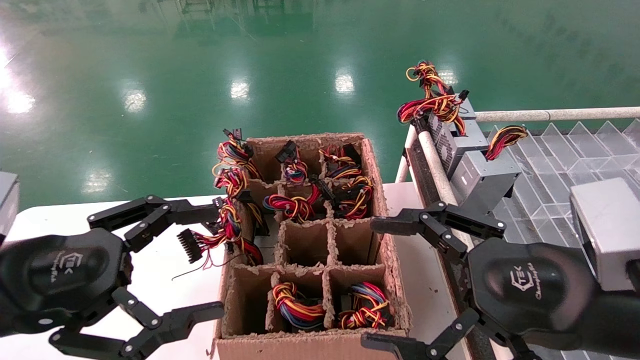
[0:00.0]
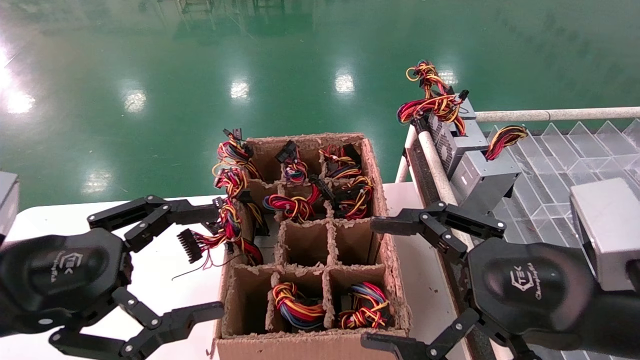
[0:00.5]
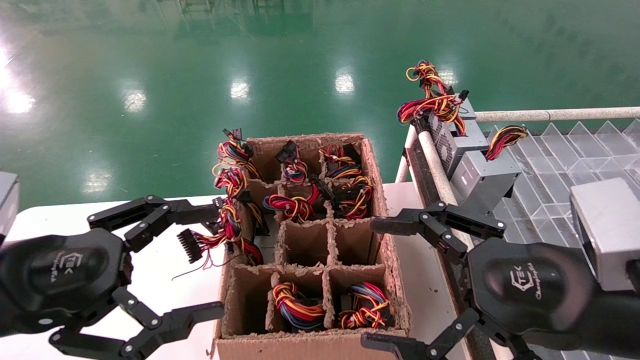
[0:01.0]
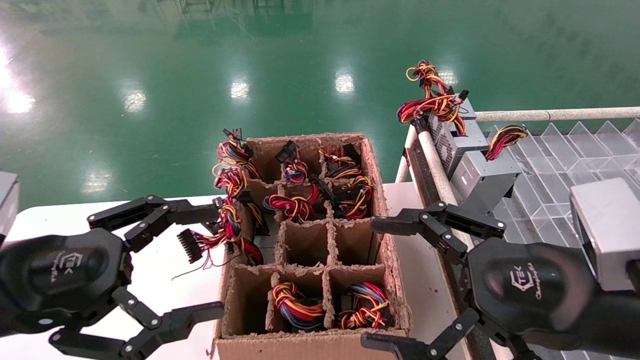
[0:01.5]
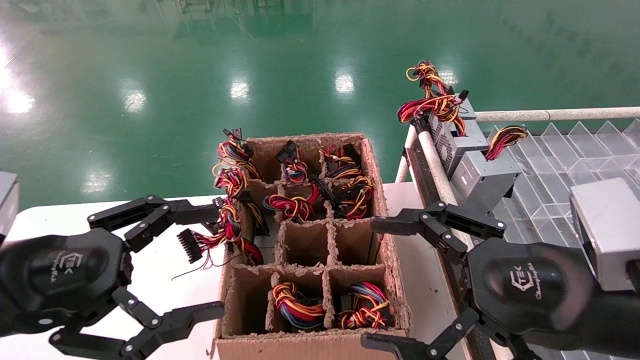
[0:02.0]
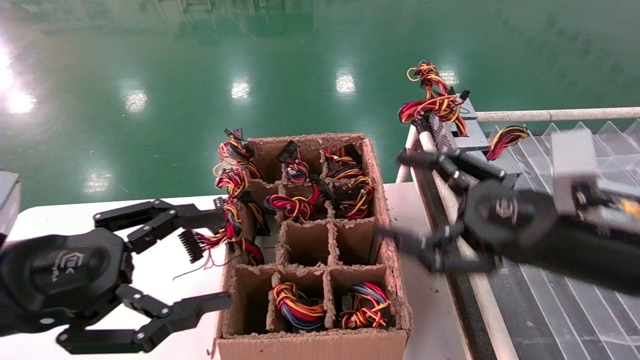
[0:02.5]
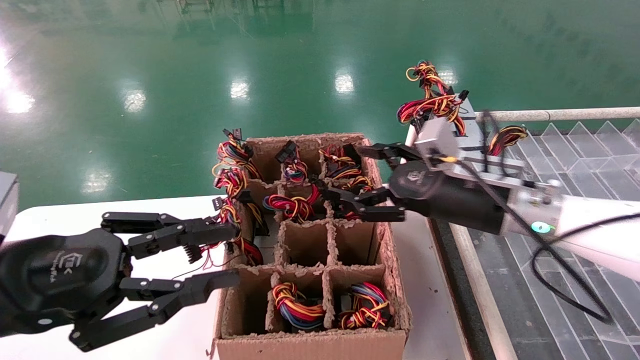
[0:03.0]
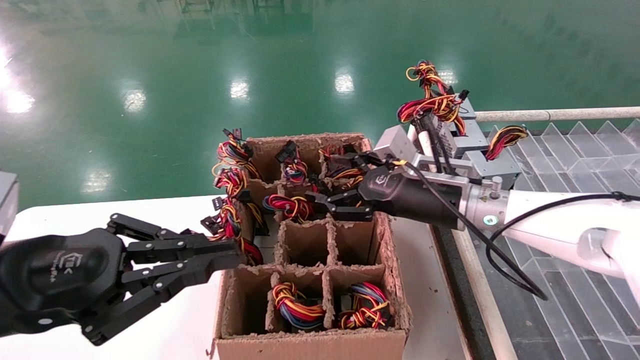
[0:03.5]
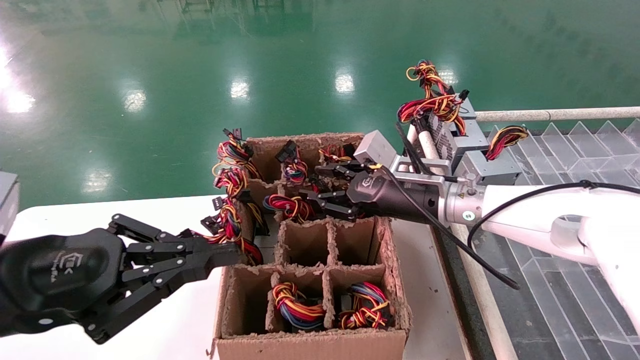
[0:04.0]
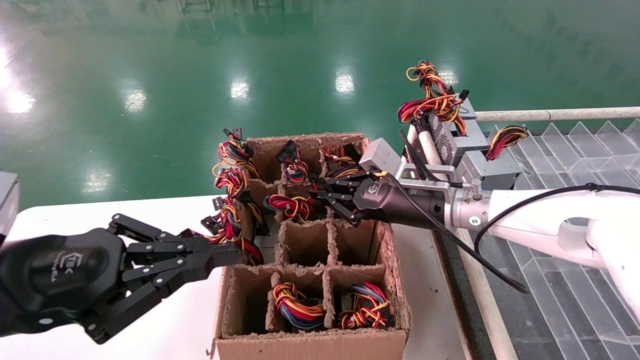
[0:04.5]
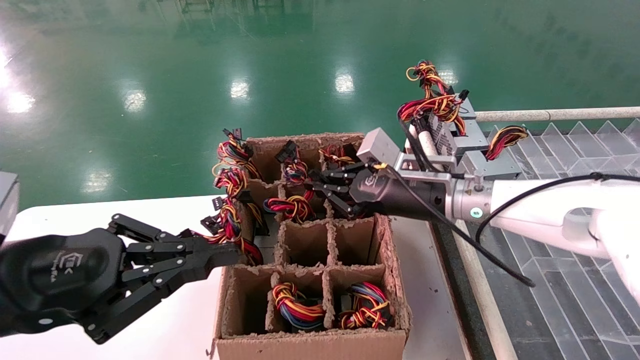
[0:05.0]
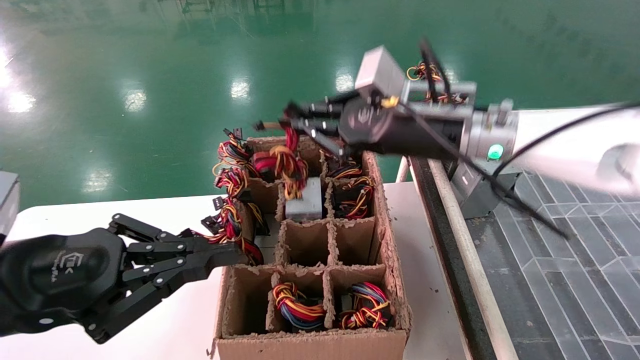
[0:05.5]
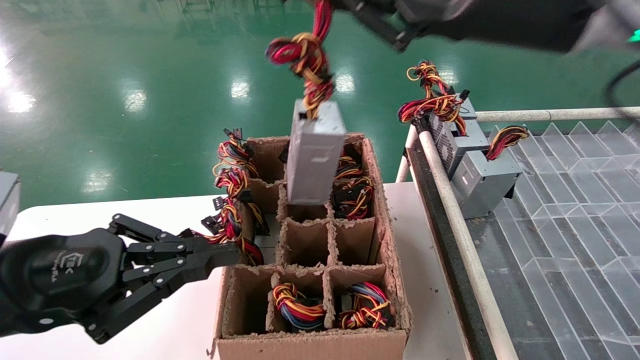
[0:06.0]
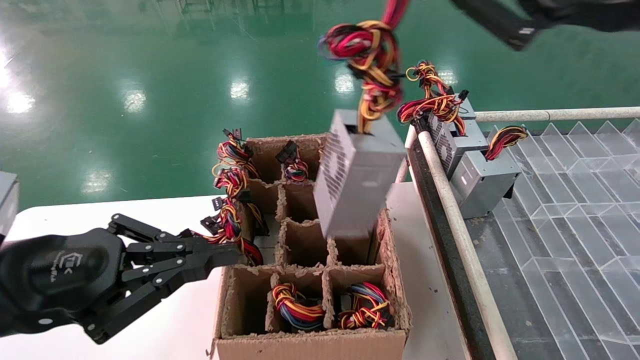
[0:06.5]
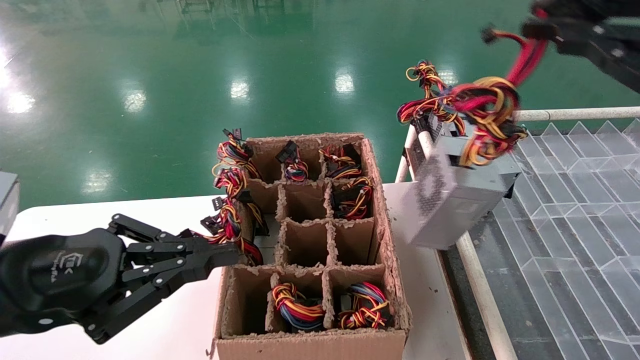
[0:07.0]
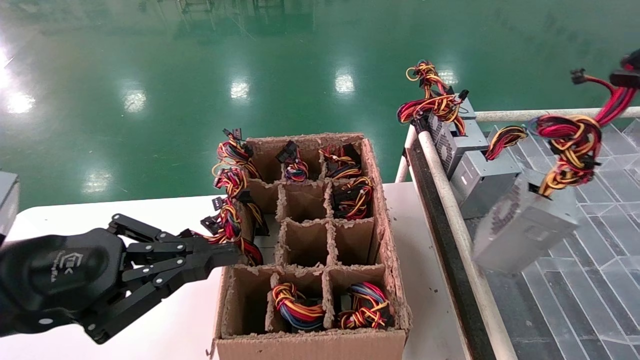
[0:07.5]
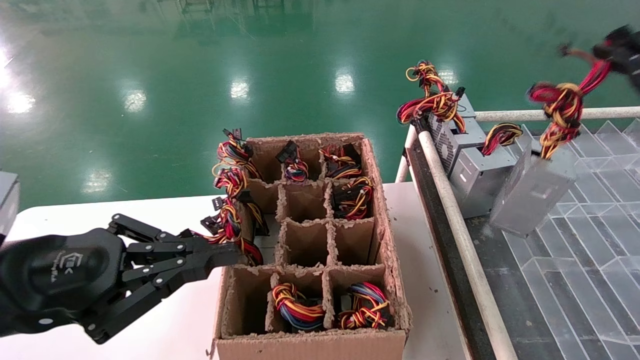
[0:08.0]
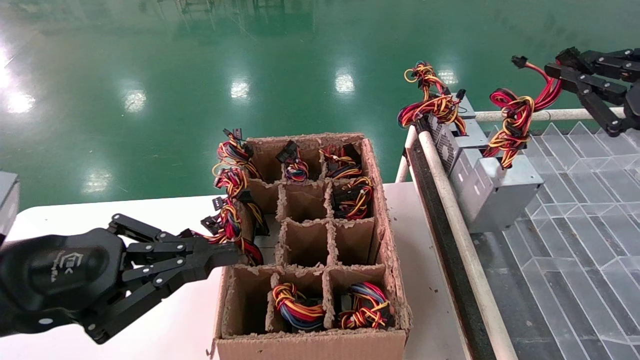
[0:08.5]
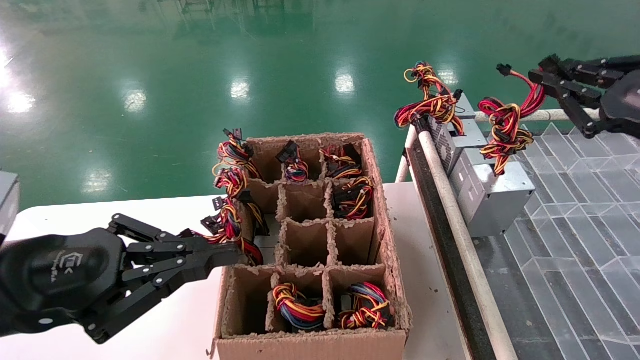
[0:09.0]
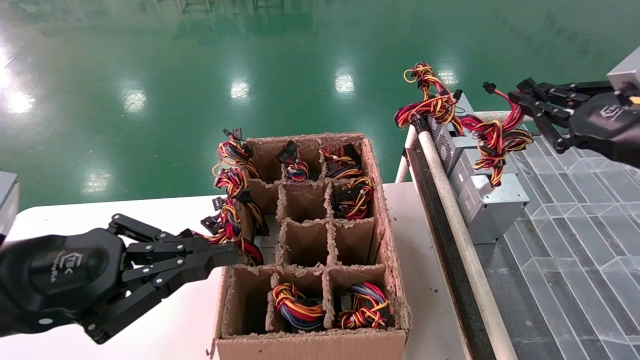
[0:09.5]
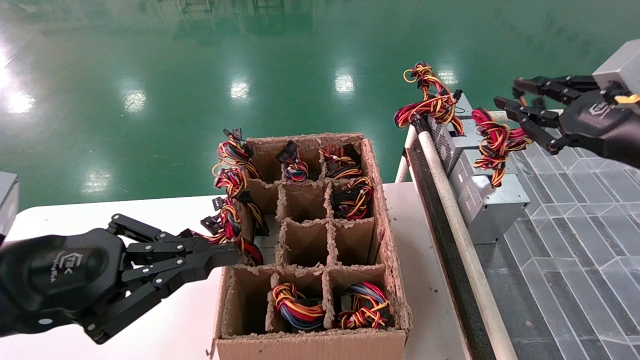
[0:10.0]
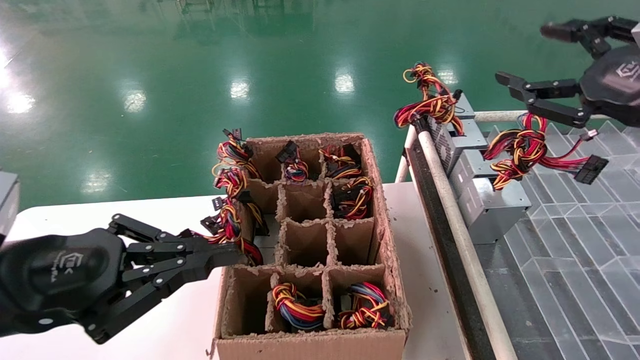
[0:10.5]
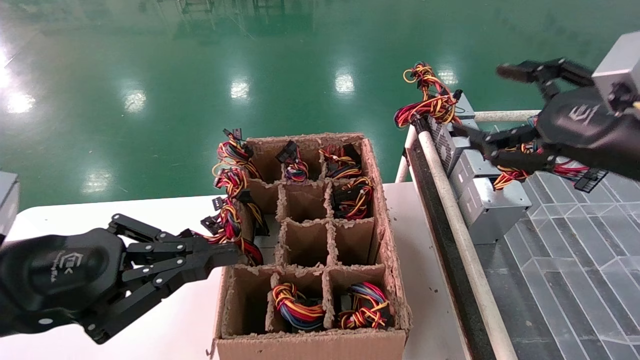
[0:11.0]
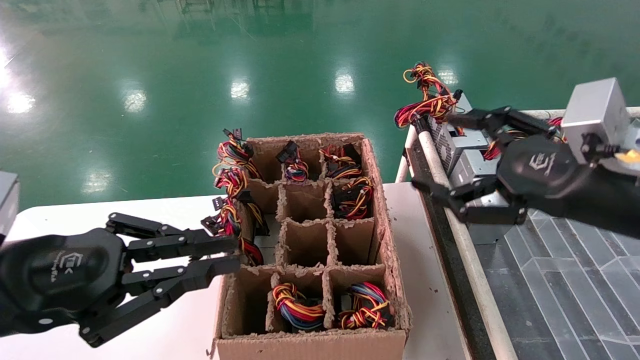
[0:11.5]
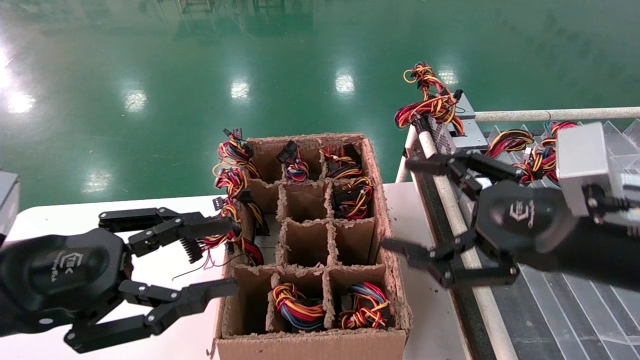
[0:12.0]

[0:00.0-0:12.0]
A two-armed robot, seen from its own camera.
Step, 0:02.5 to 0:04.5: Grab the main unit power supply from the containment box.
Step, 0:05.0 to 0:10.0: Place the main unit power supply in the designated area.
0:00.0 to 0:02.0: Neither gripper changes place.
0:02.0 to 0:04.0: The left gripper closes its fingers. The right gripper moves forward, roughly 25 cm, and closes its fingers.
0:04.0 to 0:06.0: The right gripper is displaced upward and backward by roughly 25 cm, and closes its fingers.
0:06.0 to 0:08.0: The right gripper is displaced to the right and backward by about 25 cm.
0:08.0 to 0:10.0: The right gripper heads forward, covering about 5 cm.
0:10.0 to 0:12.0: The right gripper moves to the left, downward and backward, roughly 15 cm, and opens. The left gripper opens.

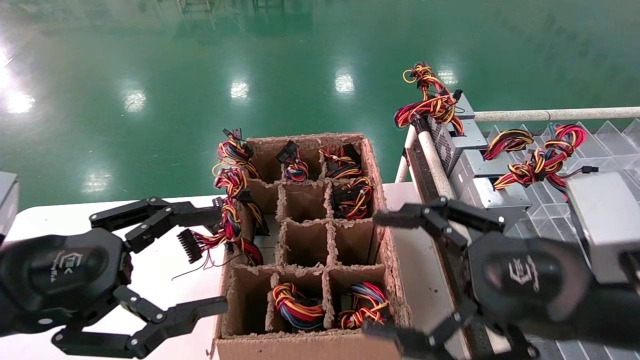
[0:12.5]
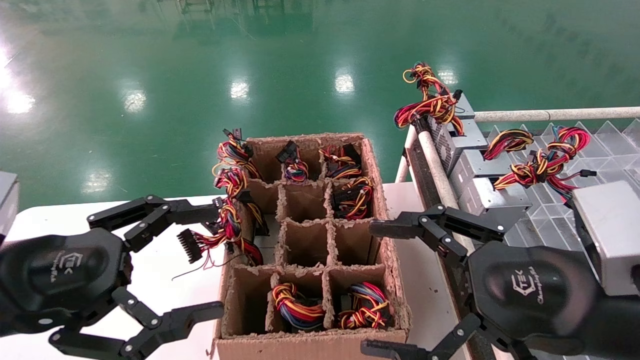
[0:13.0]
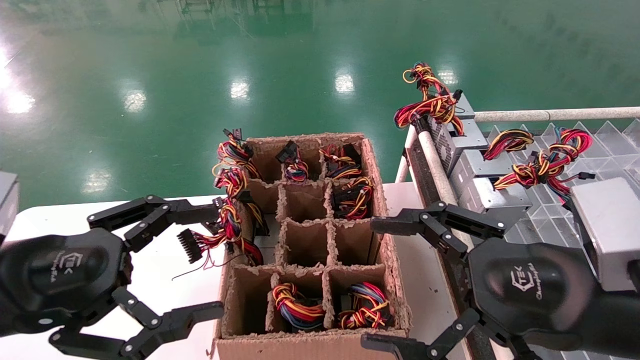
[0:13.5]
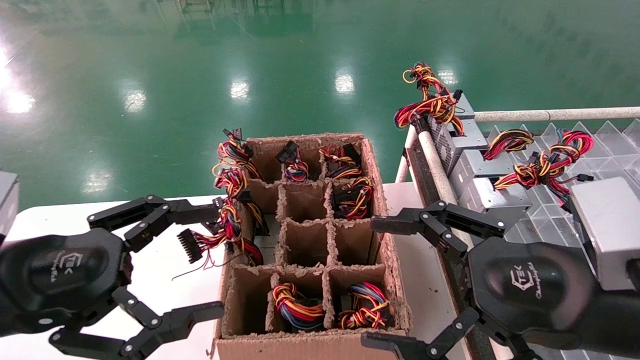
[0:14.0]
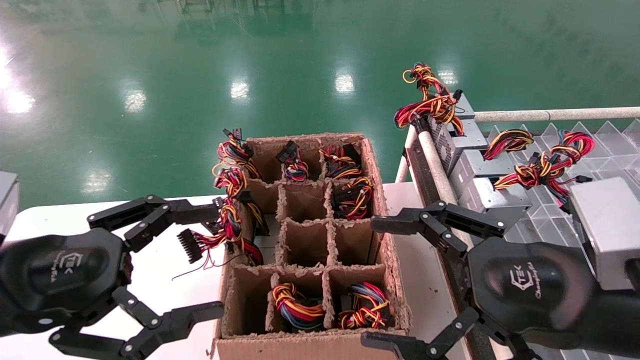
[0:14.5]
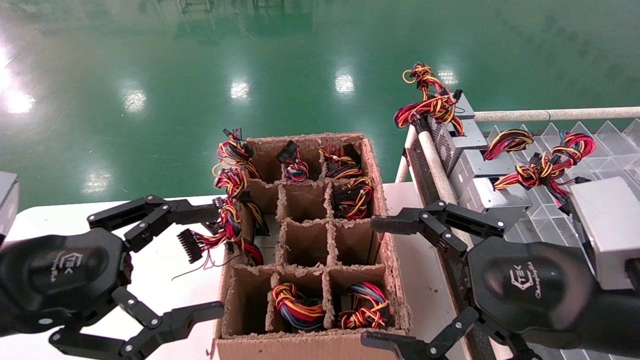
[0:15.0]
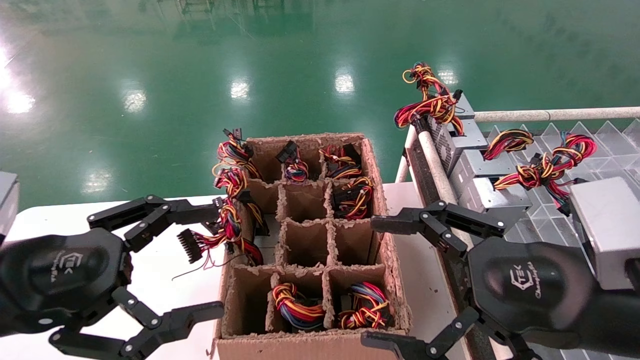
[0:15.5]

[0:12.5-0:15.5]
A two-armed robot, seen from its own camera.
0:12.5 to 0:15.5: Neither gripper changes place.

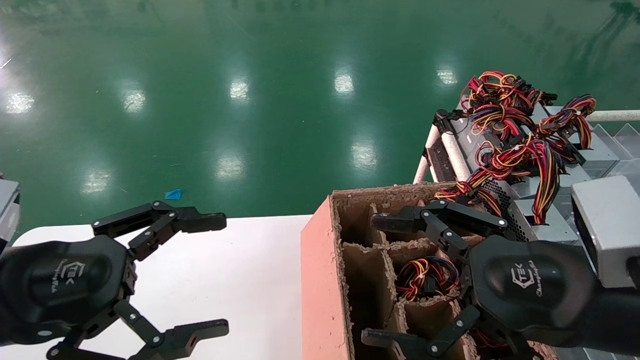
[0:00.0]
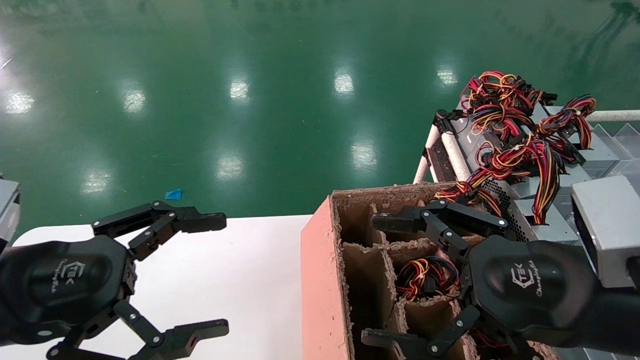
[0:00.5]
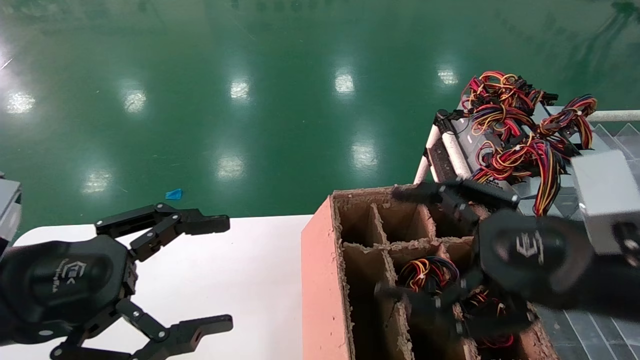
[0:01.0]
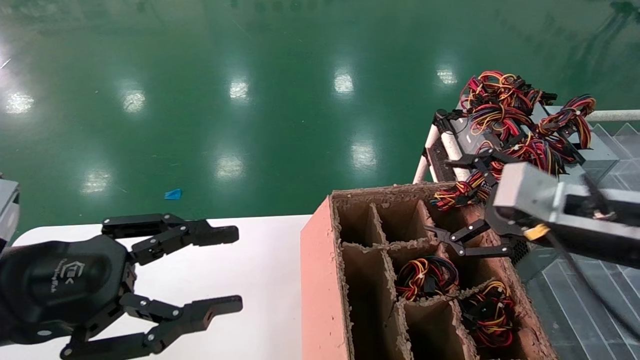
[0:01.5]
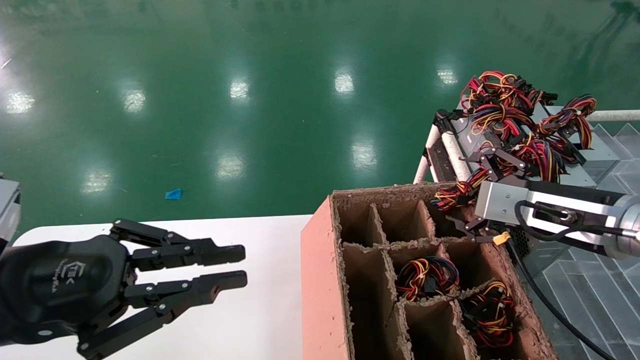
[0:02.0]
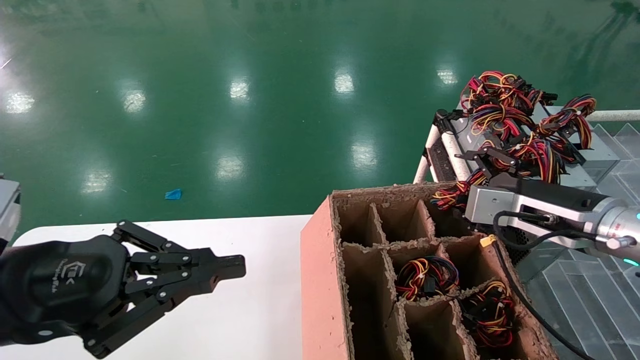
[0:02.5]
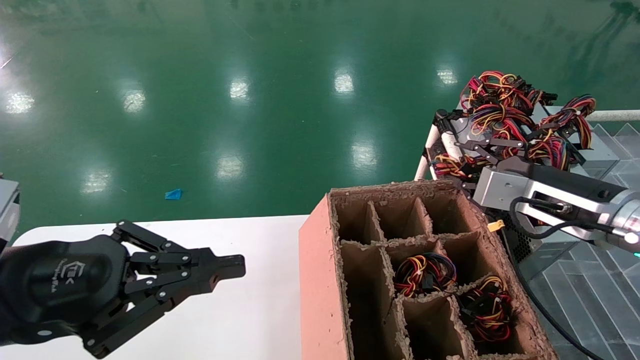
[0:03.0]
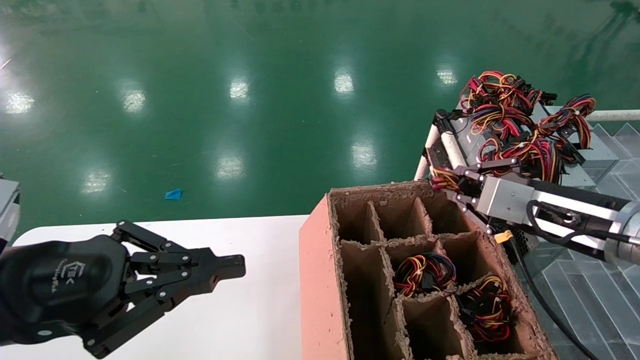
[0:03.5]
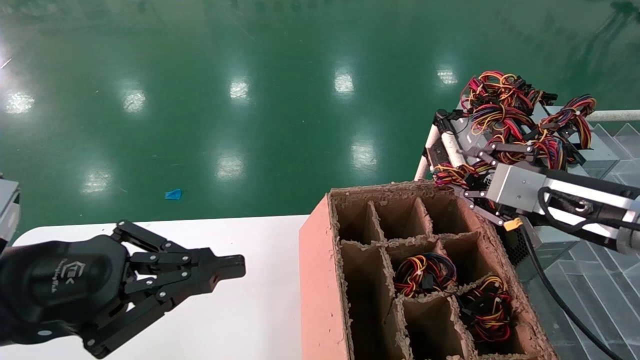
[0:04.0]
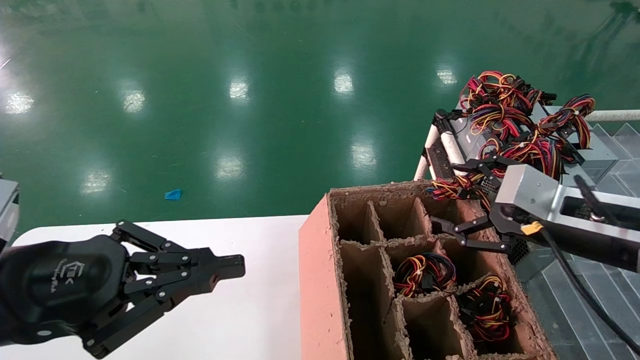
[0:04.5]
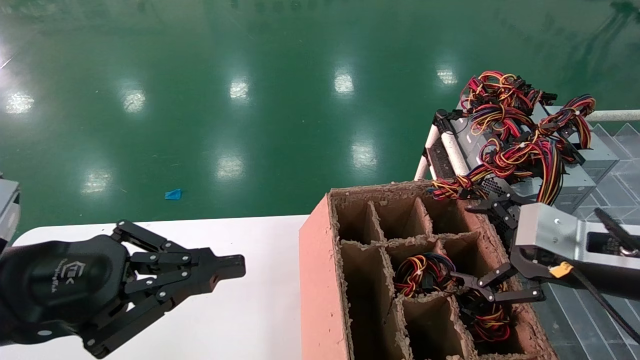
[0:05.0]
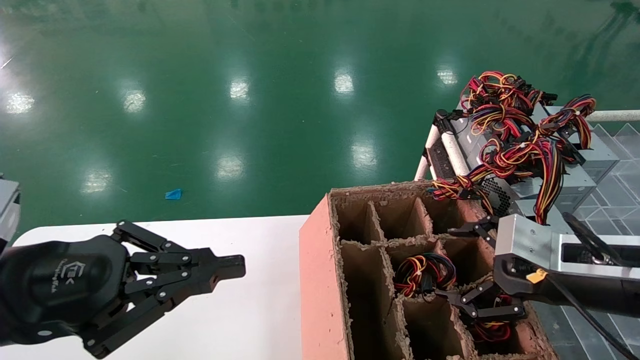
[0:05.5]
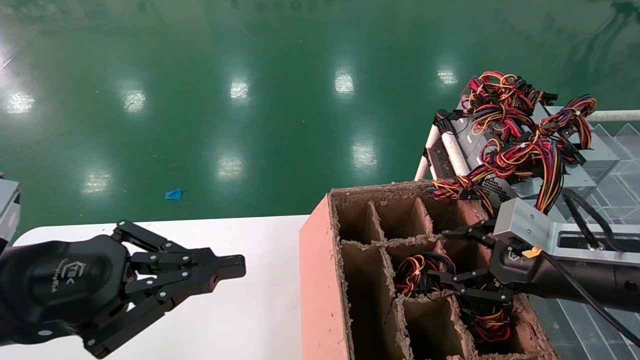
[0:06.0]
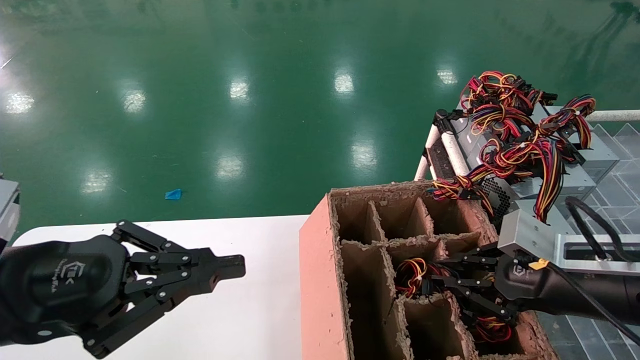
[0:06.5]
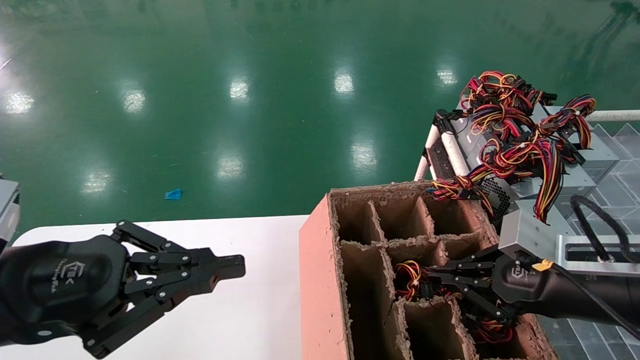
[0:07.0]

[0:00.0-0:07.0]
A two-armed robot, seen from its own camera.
Step, 0:01.5 to 0:06.5: Grab the main unit power supply from the containment box.
0:00.0 to 0:02.0: The right gripper travels forward and to the right by about 15 cm. The left gripper closes.
0:02.0 to 0:03.5: The right gripper closes up.
0:03.5 to 0:05.0: The right gripper travels backward by roughly 5 cm, and opens up.
0:05.0 to 0:07.0: The right gripper closes up.
